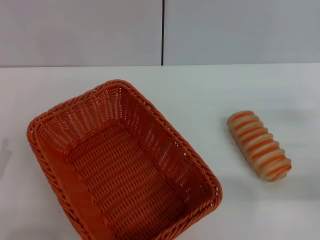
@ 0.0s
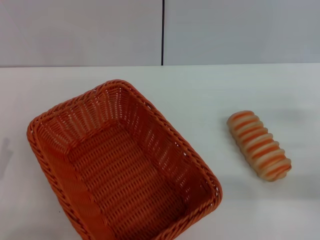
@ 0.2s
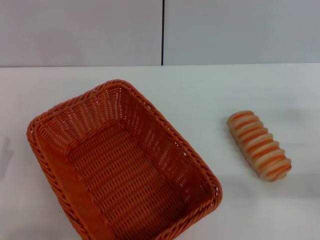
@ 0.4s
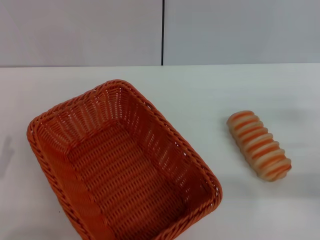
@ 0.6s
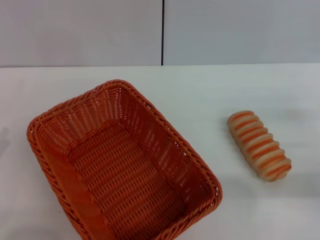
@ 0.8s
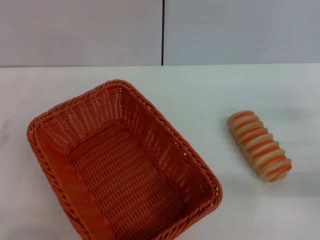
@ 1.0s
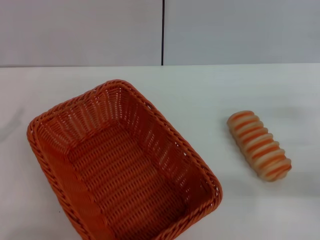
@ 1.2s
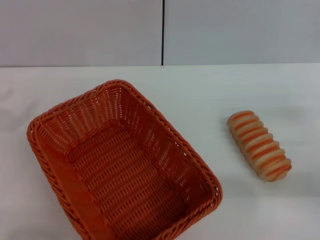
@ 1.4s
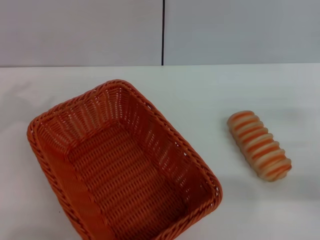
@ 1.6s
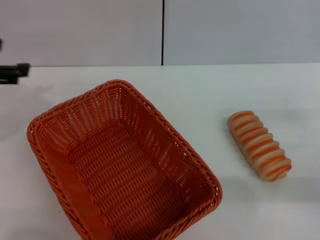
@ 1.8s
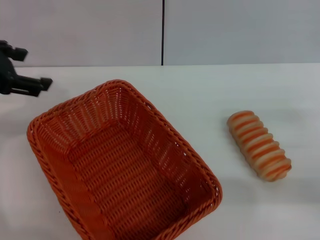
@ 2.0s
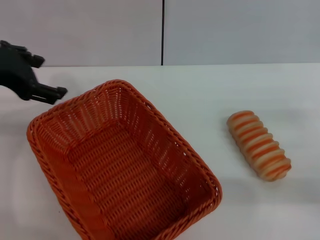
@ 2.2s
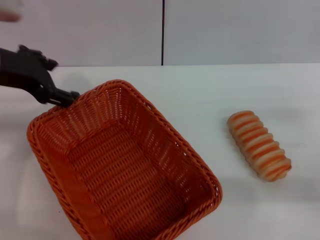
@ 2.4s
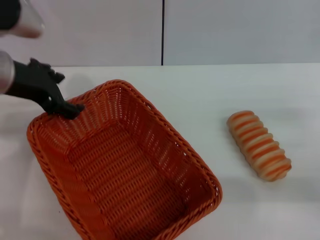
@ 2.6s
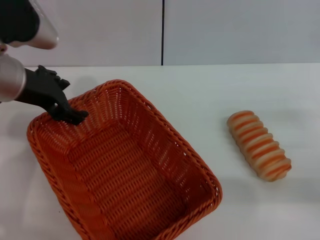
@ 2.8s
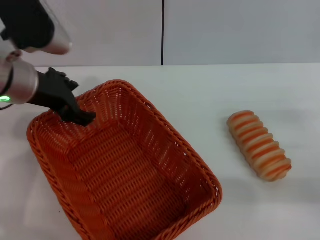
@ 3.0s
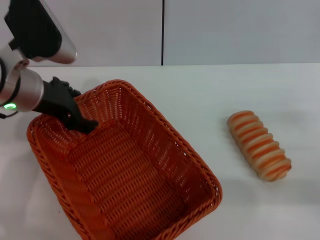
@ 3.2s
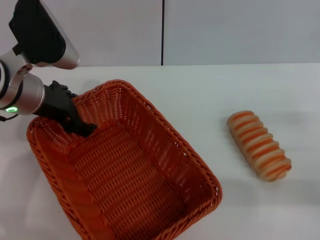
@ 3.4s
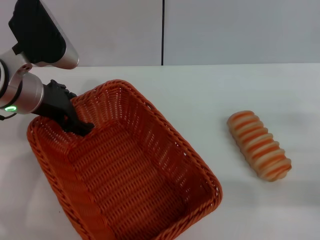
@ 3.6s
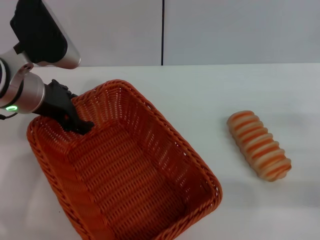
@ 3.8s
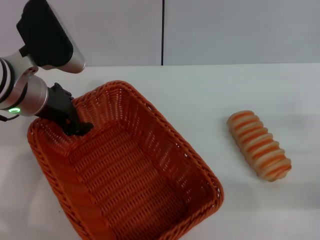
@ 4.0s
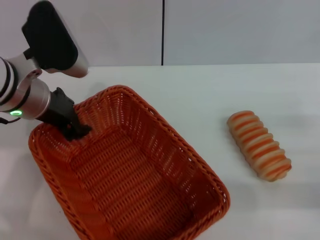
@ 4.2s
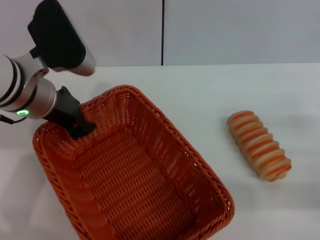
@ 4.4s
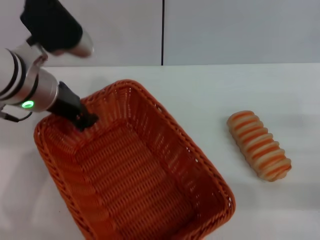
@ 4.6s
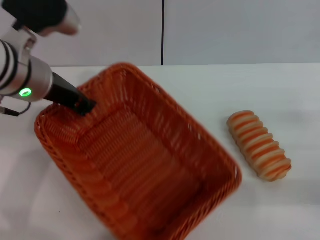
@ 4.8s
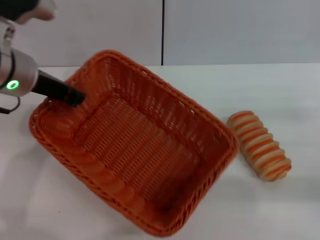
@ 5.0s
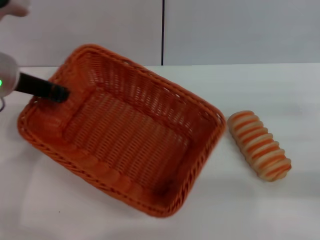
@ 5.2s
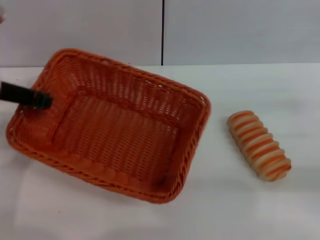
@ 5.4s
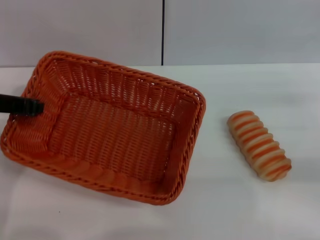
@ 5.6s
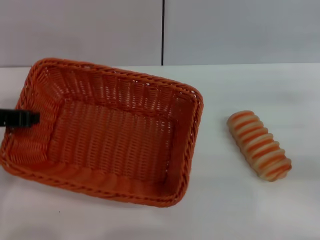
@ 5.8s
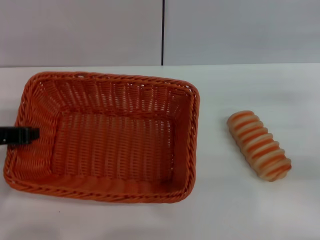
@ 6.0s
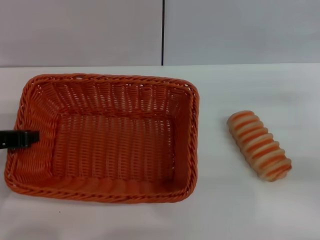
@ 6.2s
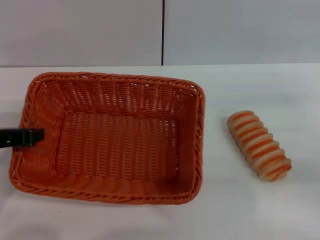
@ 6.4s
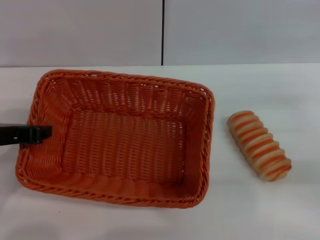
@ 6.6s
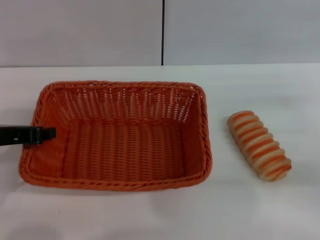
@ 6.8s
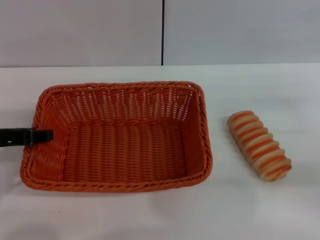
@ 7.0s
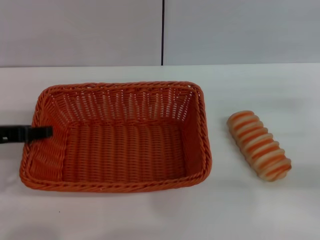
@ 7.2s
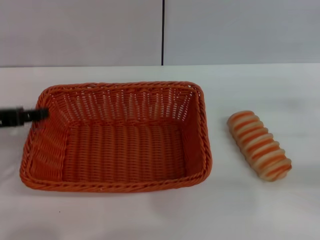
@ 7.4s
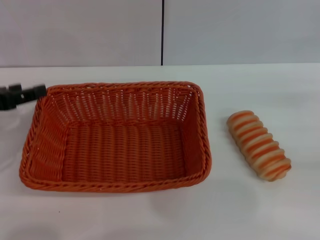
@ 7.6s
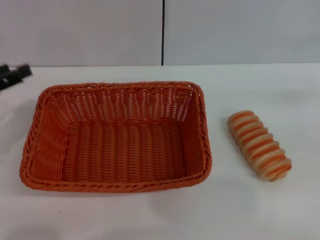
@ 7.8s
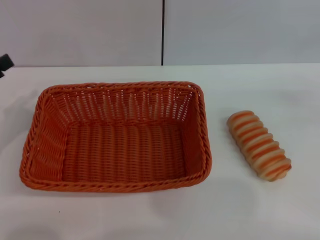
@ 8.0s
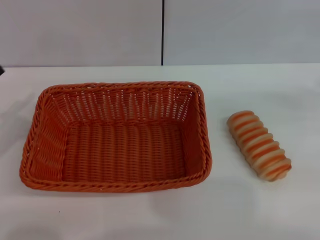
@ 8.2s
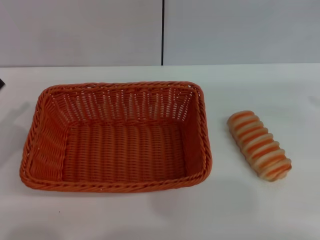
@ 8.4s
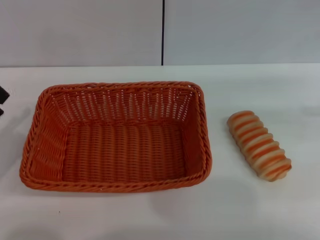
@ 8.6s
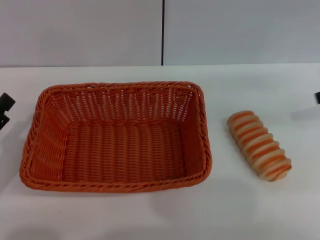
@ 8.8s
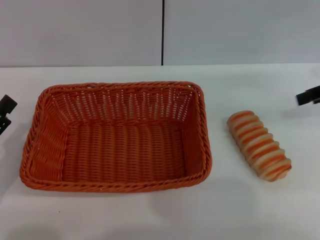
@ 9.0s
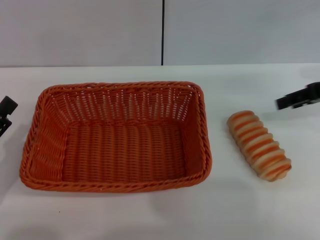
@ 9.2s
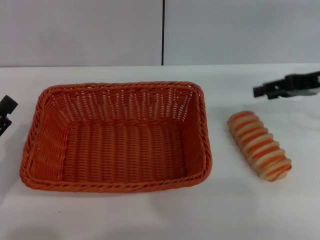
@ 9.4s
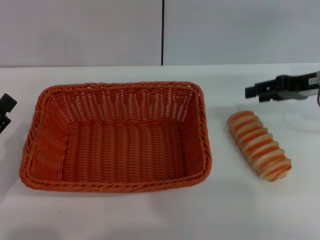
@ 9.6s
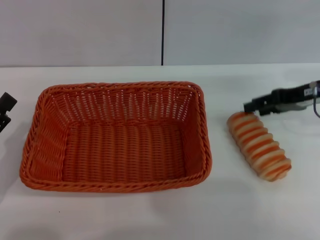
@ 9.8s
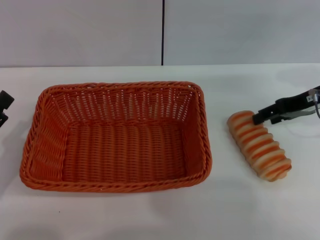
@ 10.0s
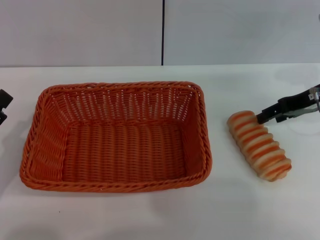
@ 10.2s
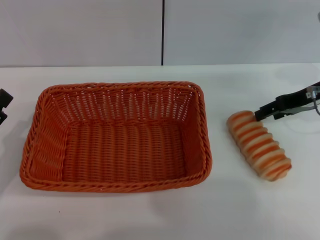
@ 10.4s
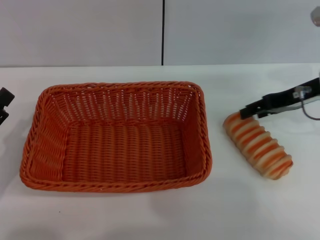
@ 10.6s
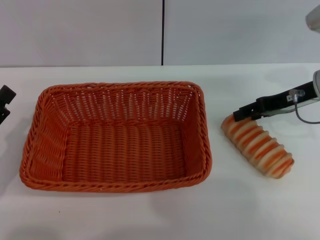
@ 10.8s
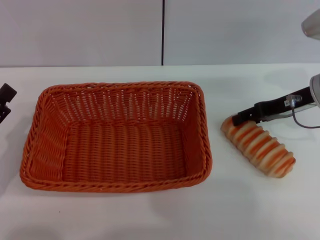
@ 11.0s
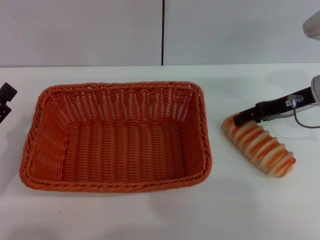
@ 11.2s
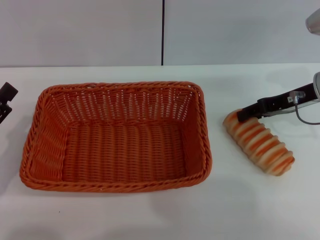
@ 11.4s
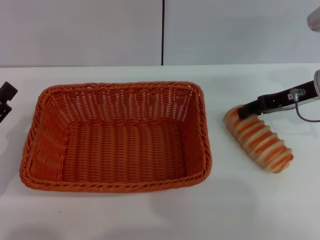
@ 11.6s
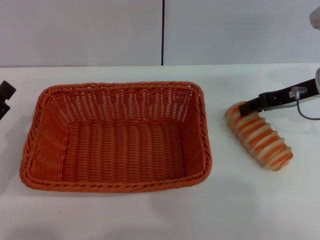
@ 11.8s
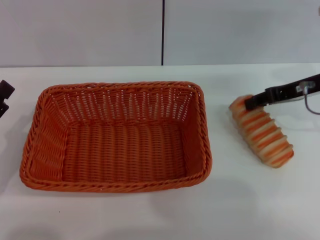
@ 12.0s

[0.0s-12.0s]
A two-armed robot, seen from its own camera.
Step, 0.0s to 5.0s: Pick up the light basket with the left gripper.
Step, 5.4s to 7.6s: Place the light basket in the center of view with the left gripper.
1.6s to 3.0s: The left gripper moves to the right and forward, about 20 cm.
3.0s to 4.4s: The left gripper closes up.
4.4s to 6.0s: The left gripper travels to the left and backward by approximately 10 cm, and closes. The right gripper shifts by roughly 5 cm.
6.0s to 7.6s: The left gripper opens up.
7.6s to 9.0s: The right gripper moves forward, upward and to the left, approximately 15 cm; the left gripper travels downward and backward by some 15 cm.
9.0s to 10.4s: The right gripper moves to the left and downward, roughly 10 cm.
10.4s to 12.0s: The right gripper closes.

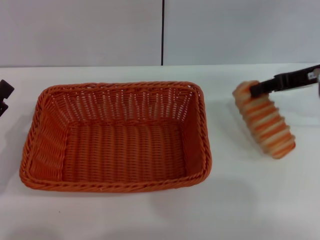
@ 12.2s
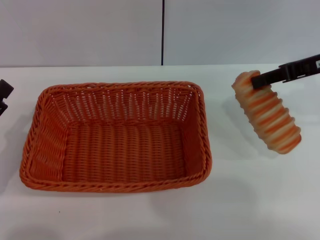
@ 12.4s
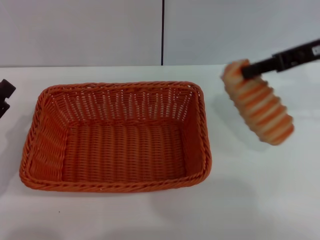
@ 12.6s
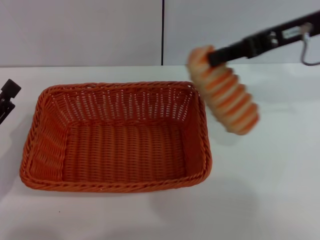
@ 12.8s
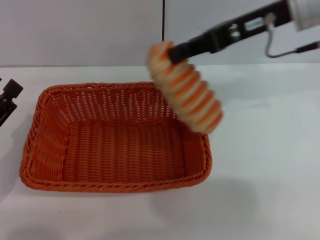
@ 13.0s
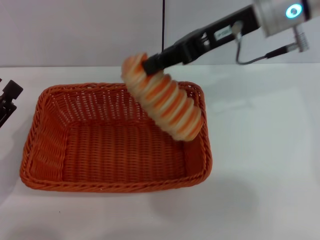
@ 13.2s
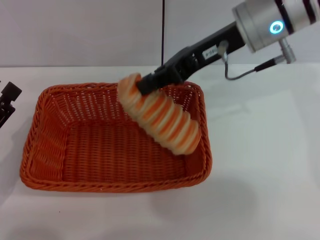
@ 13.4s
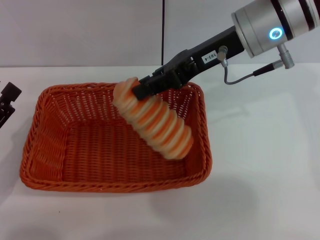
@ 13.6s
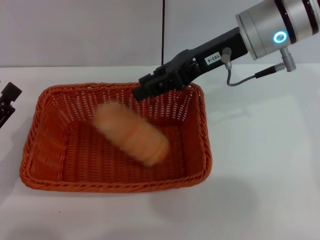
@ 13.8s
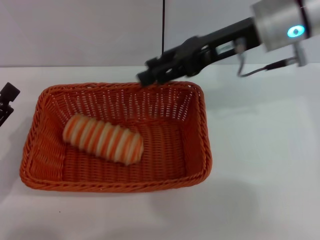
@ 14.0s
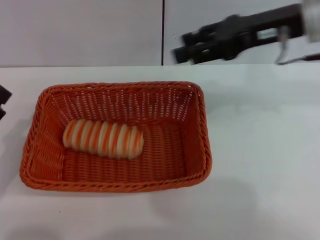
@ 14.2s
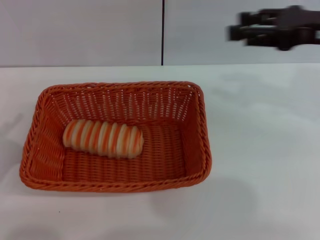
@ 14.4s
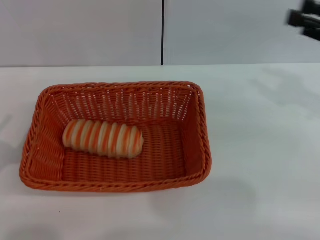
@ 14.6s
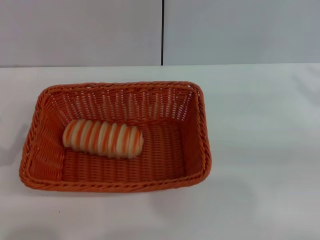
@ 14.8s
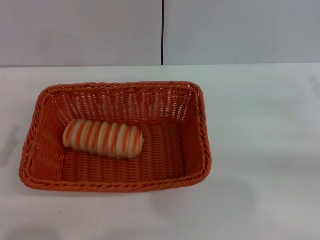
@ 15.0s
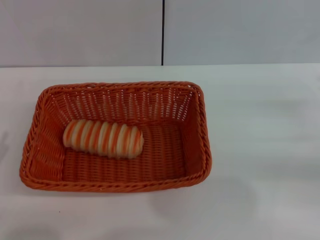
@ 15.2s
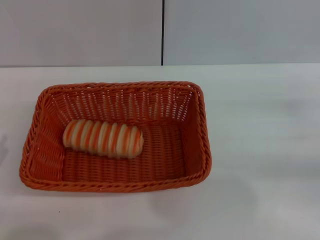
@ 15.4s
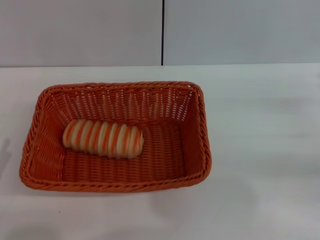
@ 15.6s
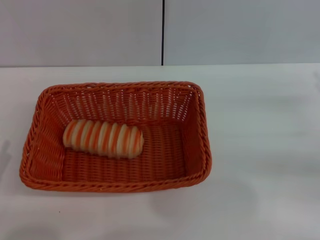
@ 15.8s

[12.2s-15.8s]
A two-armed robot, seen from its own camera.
Step, 12.6s to 13.8s: Place the long bread into the light basket with the right gripper.
12.2s to 14.0s: The right gripper is displaced to the left and upward by approximately 15 cm.
14.0s to 15.8s: The right gripper moves to the right, downward and backward, about 30 cm, and opens up; the left gripper moves backward, approximately 5 cm.
